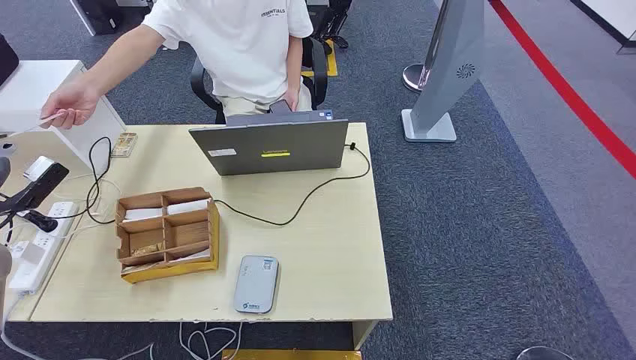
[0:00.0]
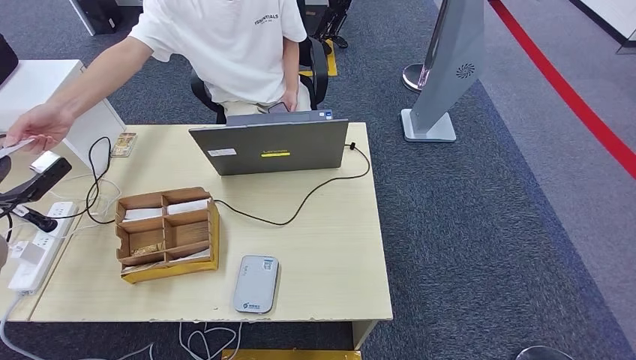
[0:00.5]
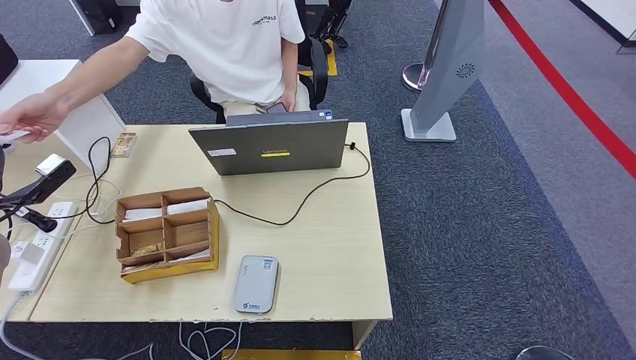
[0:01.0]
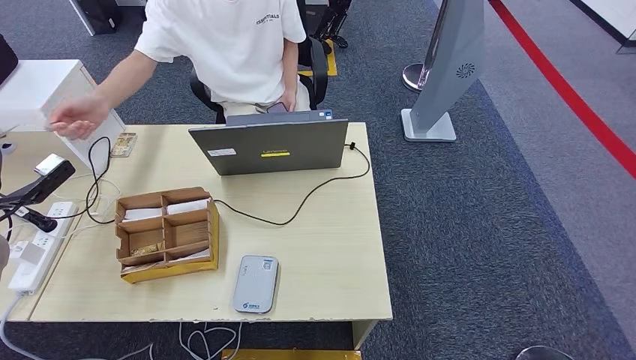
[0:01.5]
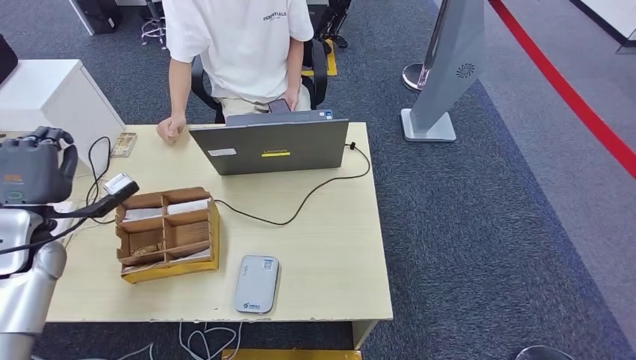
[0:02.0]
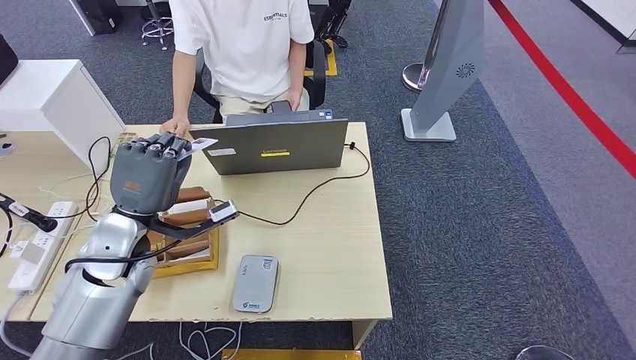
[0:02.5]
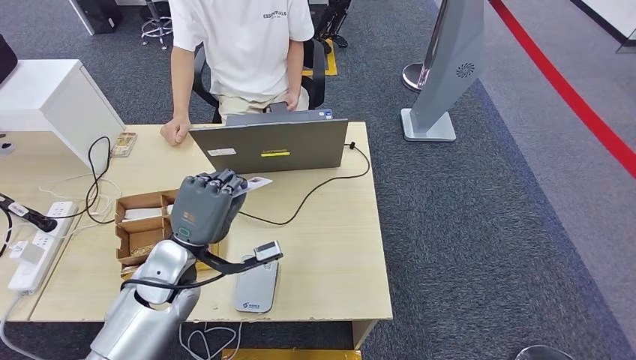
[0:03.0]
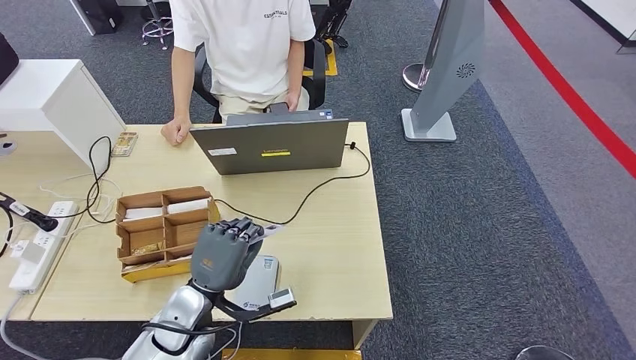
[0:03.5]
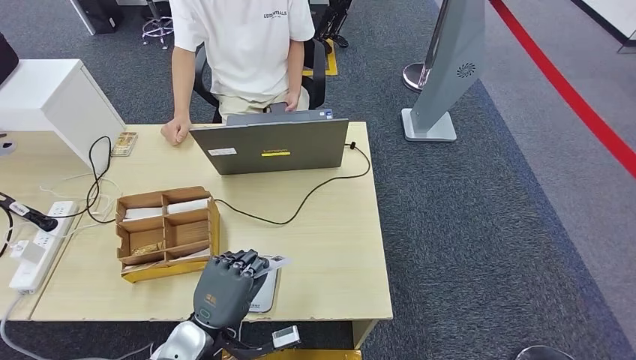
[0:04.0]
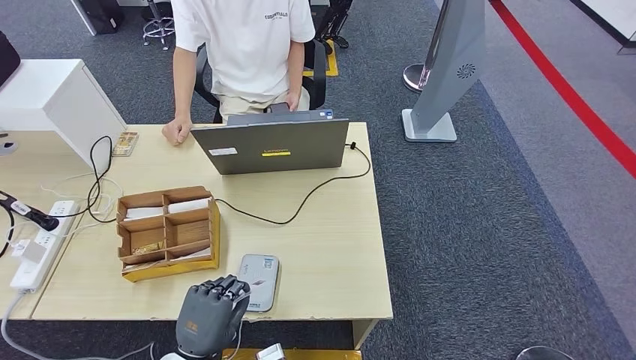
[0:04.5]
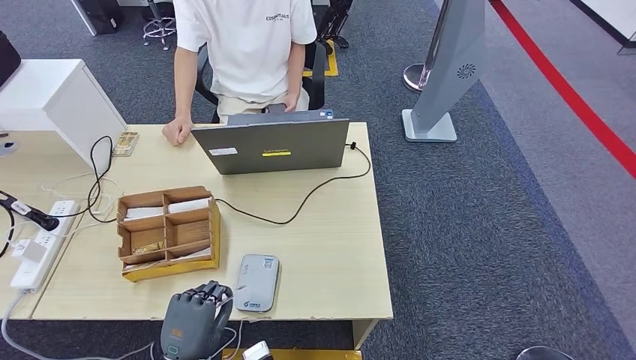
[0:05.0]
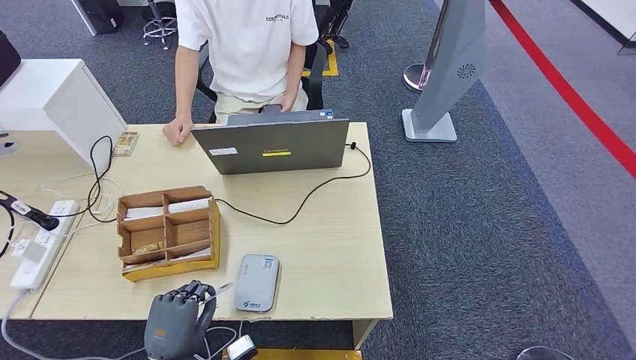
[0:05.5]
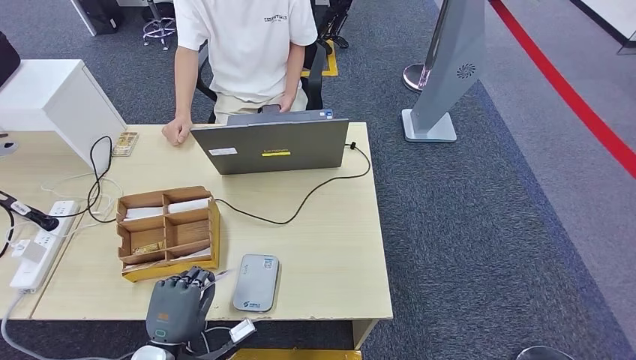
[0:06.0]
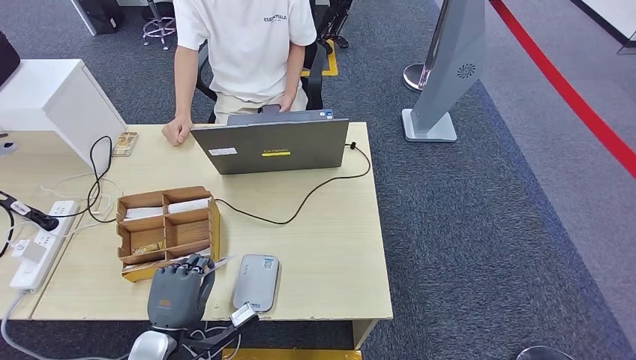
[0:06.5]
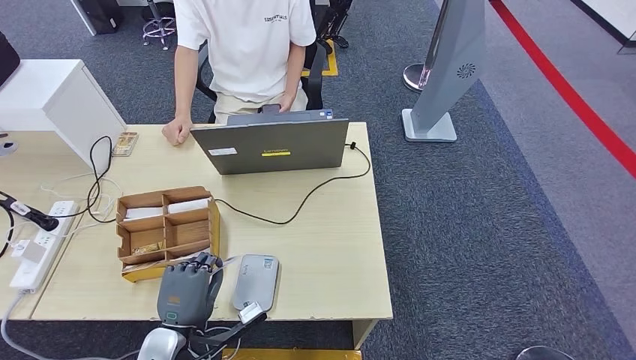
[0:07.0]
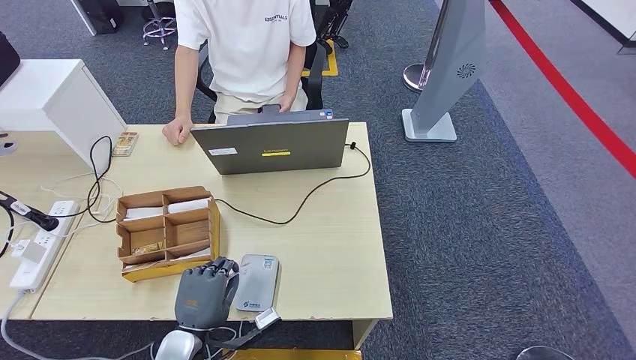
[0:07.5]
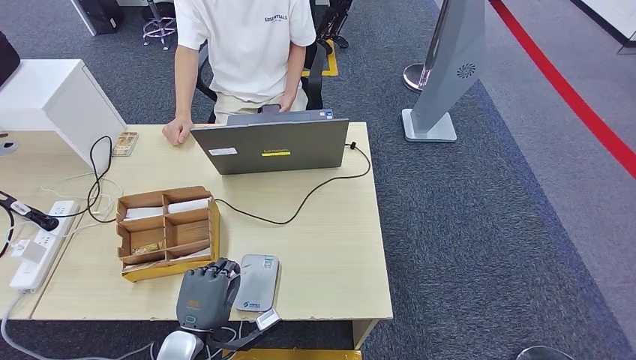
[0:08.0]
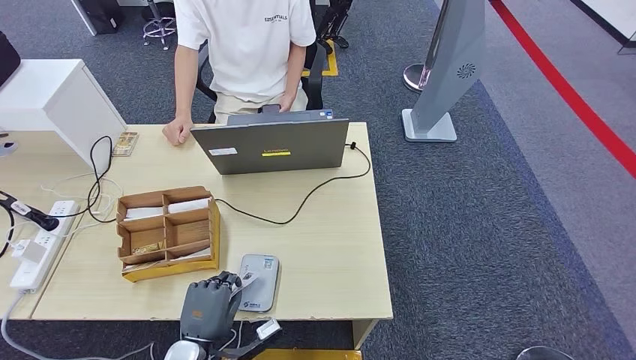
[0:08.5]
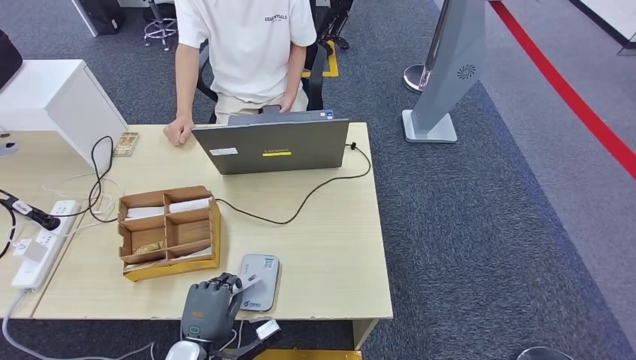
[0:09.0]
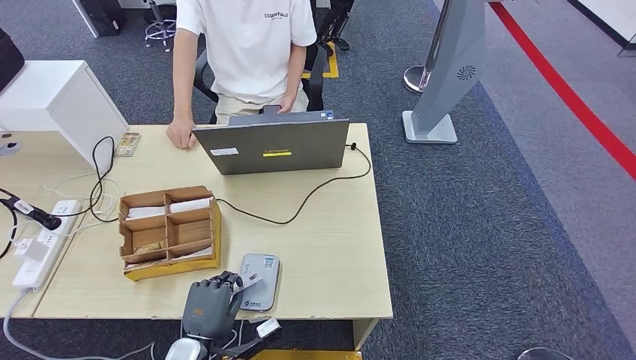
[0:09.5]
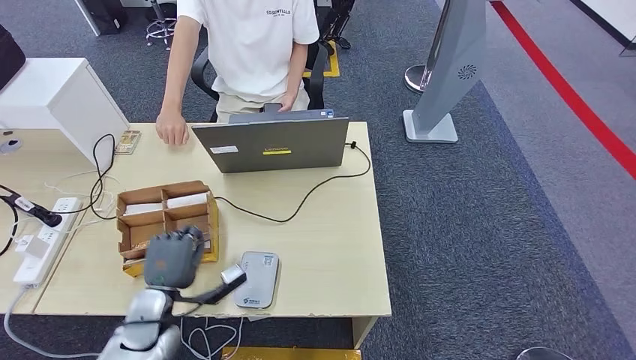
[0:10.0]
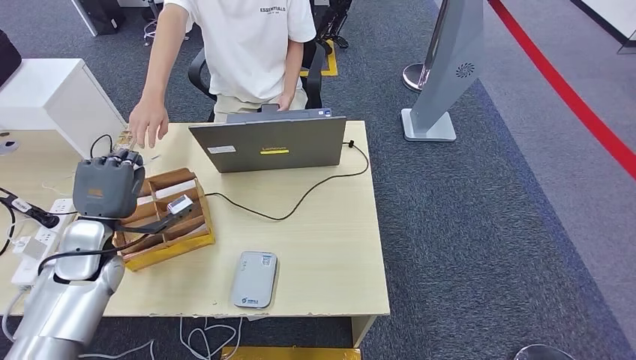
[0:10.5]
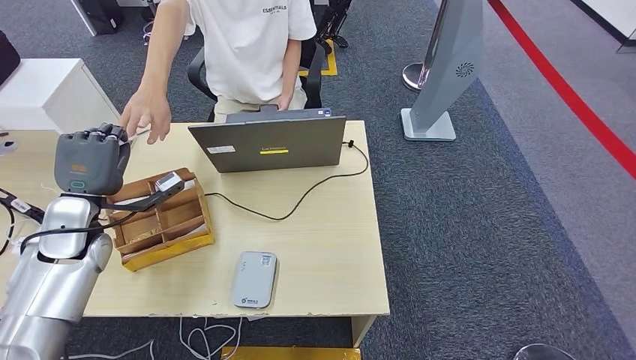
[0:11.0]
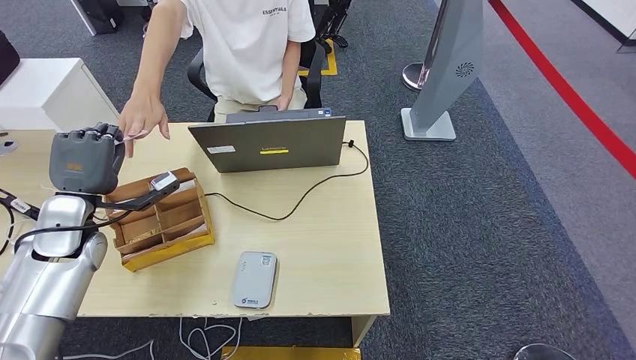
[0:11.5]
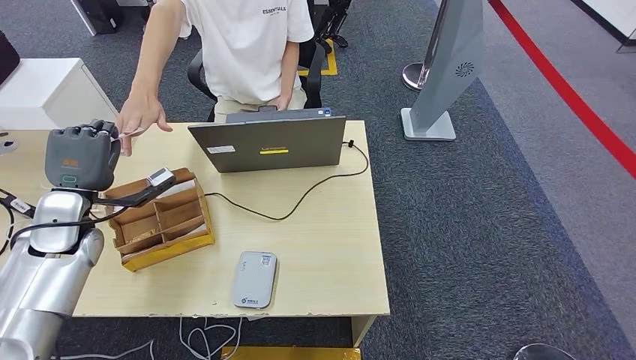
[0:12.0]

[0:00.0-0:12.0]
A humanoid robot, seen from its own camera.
Step, 0.0 to 2.5 s: Take the ID card from the person's hand.
Step, 3.0 to 11.0 s: Place the ID card on the card reader.
2.0 to 4.0 s: The left hand shifts some 30 cm to the right, backward and downward.
4.0 to 6.0 s: The left hand shifts approximately 5 cm to the left.
6.0 to 8.0 s: There are only small adjustments of the hands.
8.0 to 10.0 s: The left hand moves forward and to the left, approximately 10 cm.

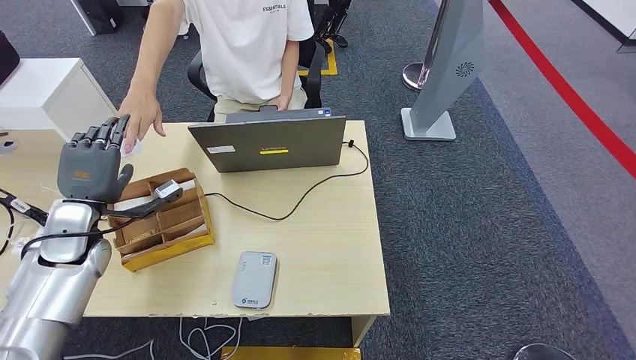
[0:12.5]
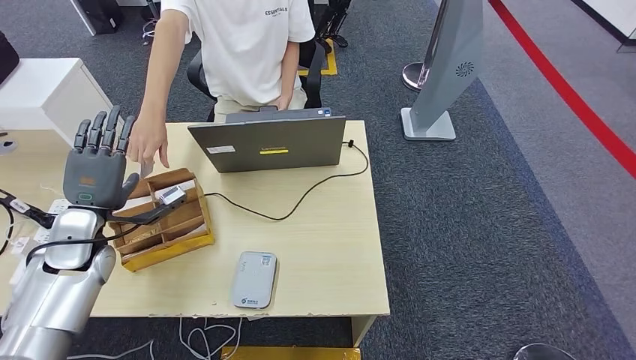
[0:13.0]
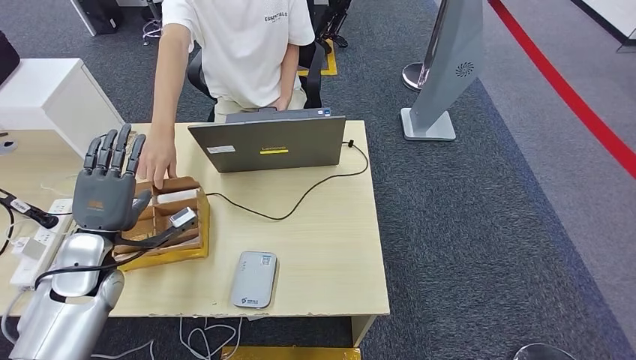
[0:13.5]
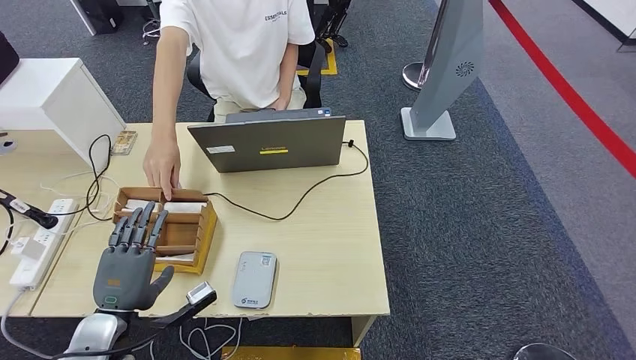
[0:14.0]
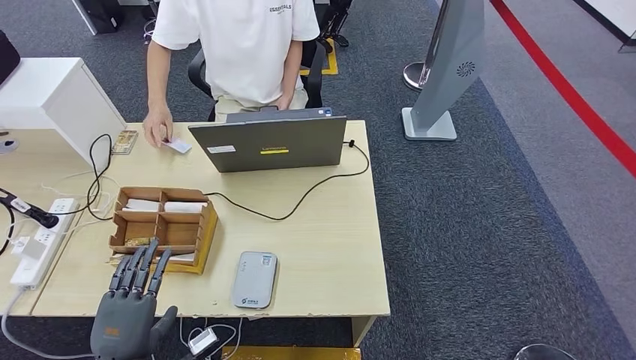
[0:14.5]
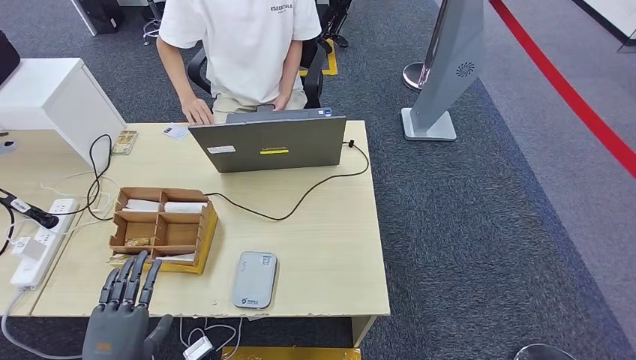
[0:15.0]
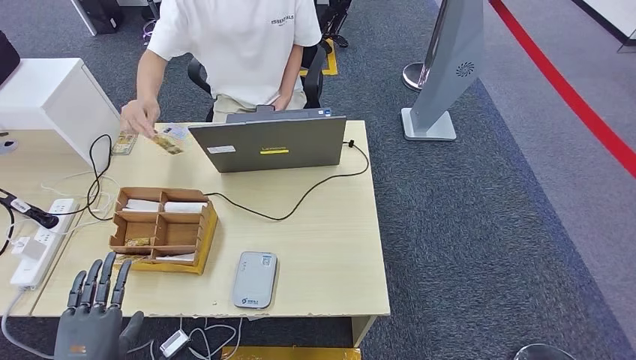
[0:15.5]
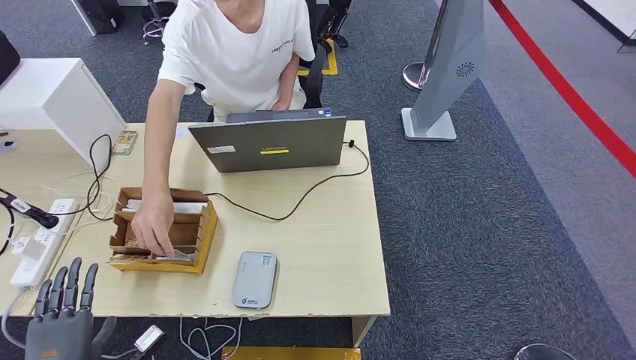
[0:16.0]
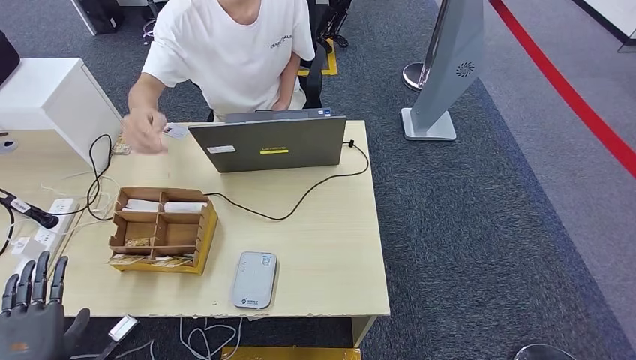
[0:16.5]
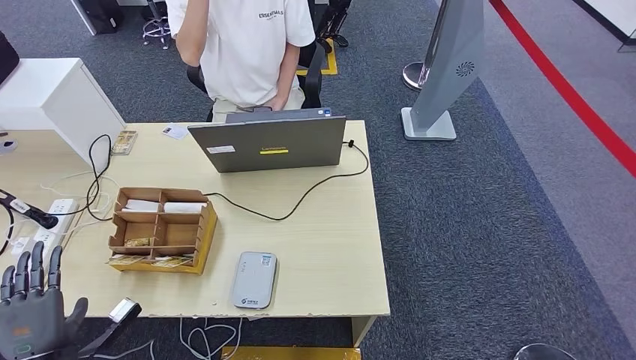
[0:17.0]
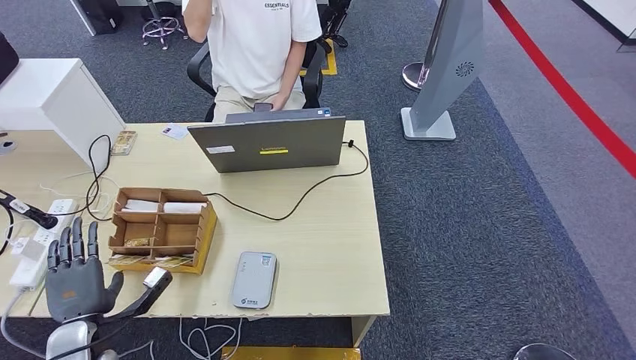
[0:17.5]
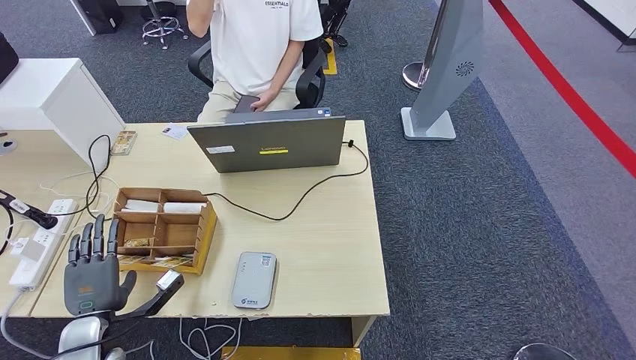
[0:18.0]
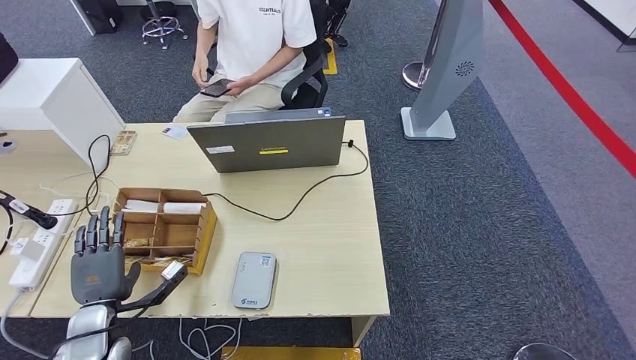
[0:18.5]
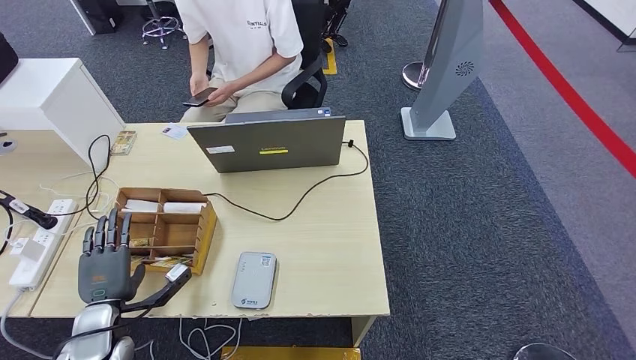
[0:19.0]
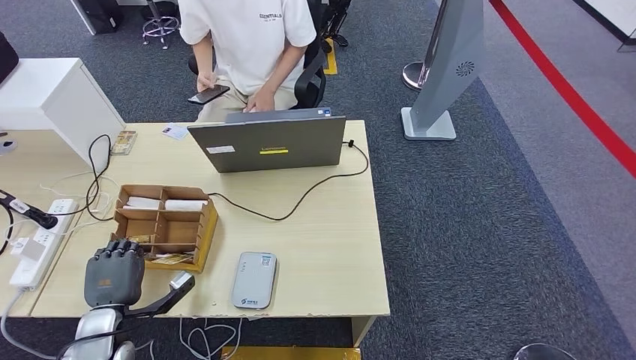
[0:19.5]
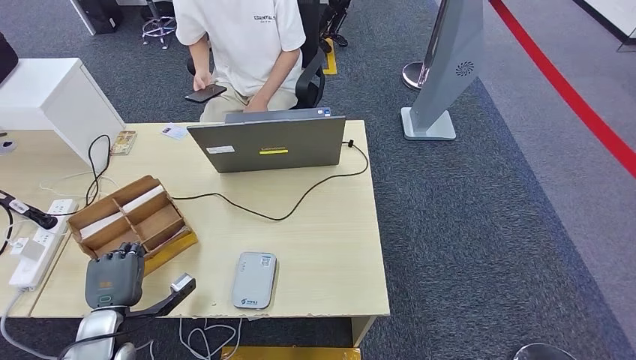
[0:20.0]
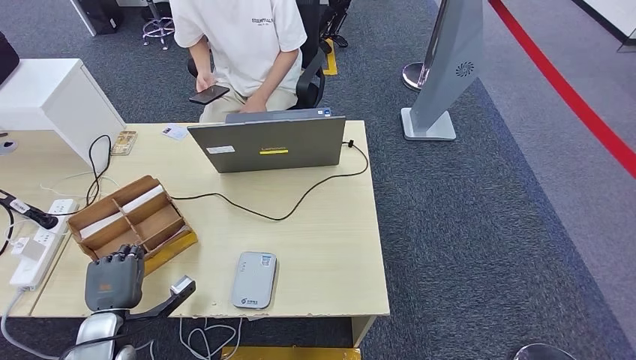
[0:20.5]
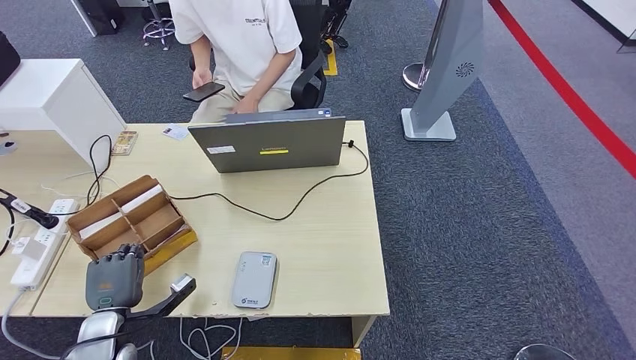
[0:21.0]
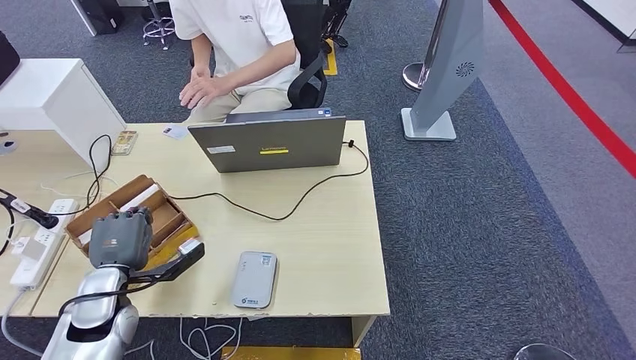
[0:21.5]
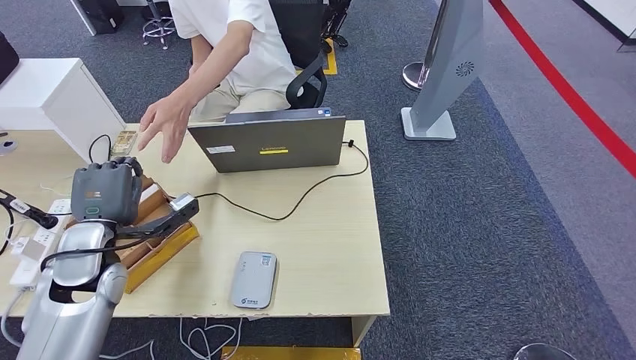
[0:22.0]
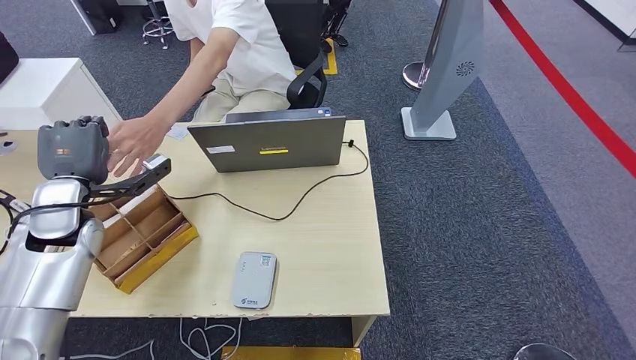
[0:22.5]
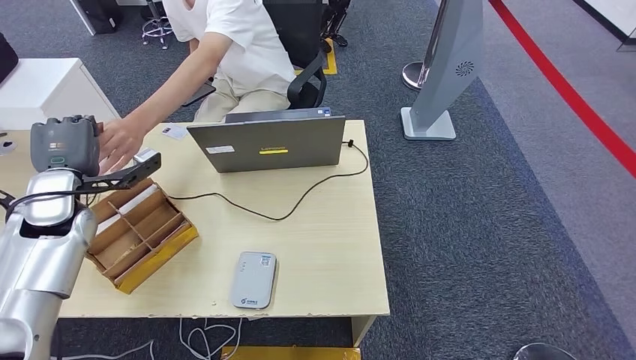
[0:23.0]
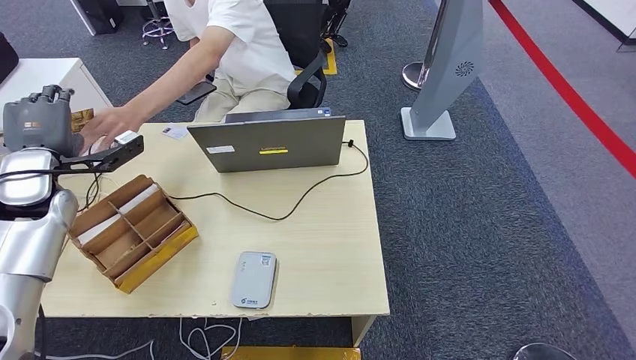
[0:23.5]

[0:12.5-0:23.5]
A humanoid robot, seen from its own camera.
Step, 14.0 to 22.0 s: Pick up the room key from the key card box.
12.5 to 14.5 s: The left hand shifts some 25 cm backward and downward.
14.5 to 16.0 s: The left hand shifts roughly 10 cm to the left.
16.0 to 18.0 s: The left hand heads forward, covering approximately 10 cm.
18.0 to 20.0 s: There are only small adjustments of the hands.
20.0 to 21.5 s: The left hand is displaced upward by some 10 cm.
21.5 to 23.5 s: The left hand travels upward and forward by some 20 cm.
